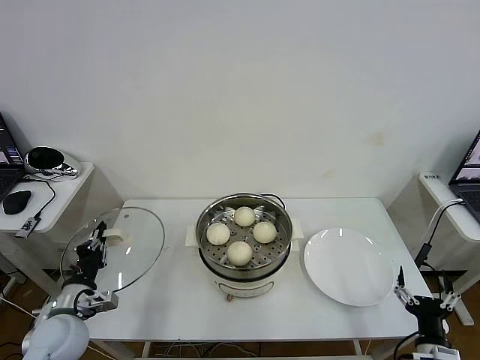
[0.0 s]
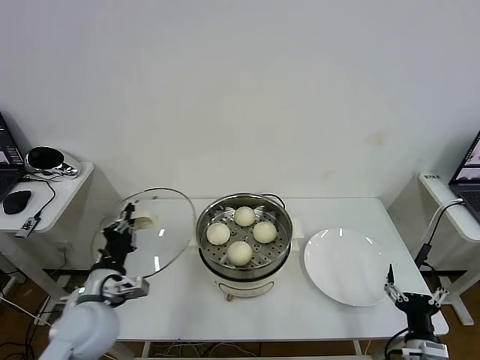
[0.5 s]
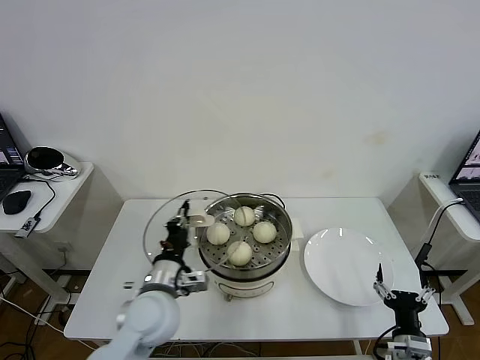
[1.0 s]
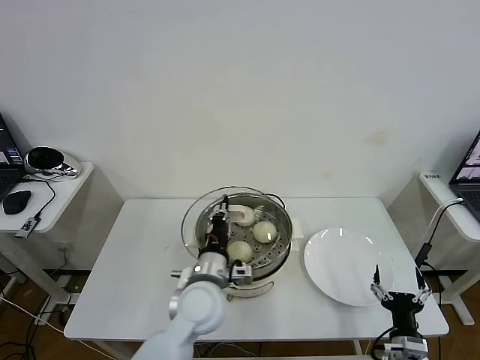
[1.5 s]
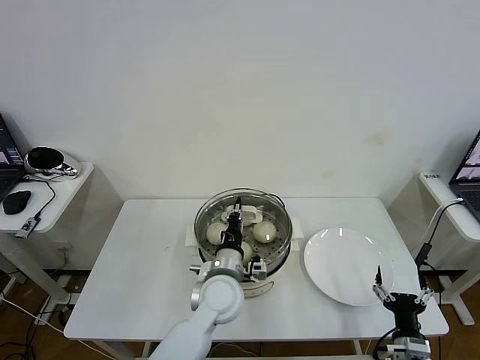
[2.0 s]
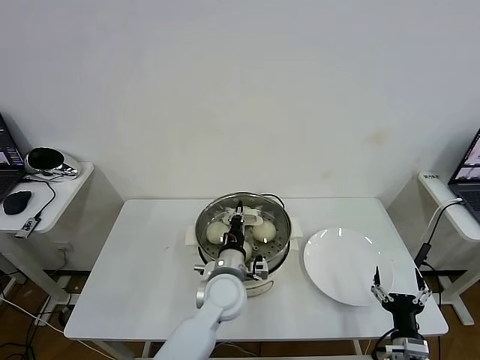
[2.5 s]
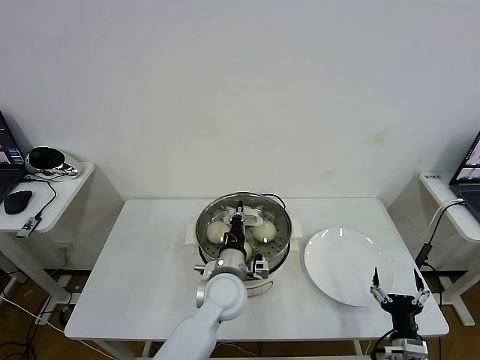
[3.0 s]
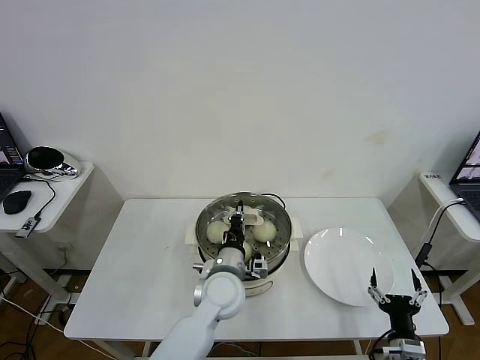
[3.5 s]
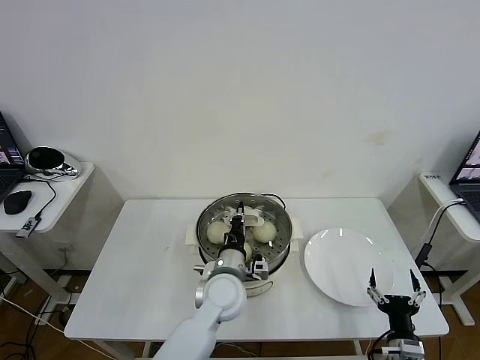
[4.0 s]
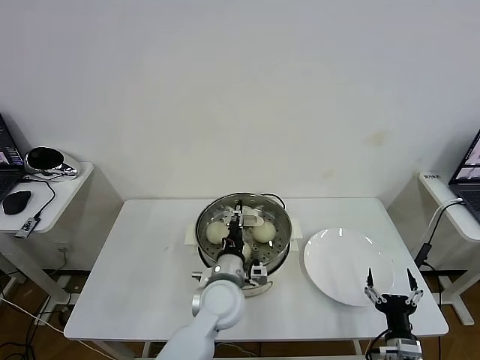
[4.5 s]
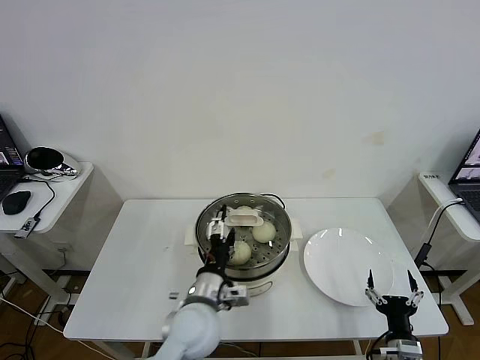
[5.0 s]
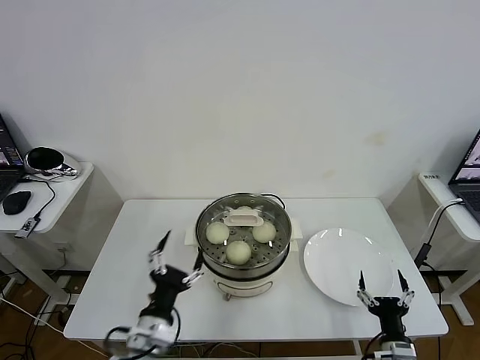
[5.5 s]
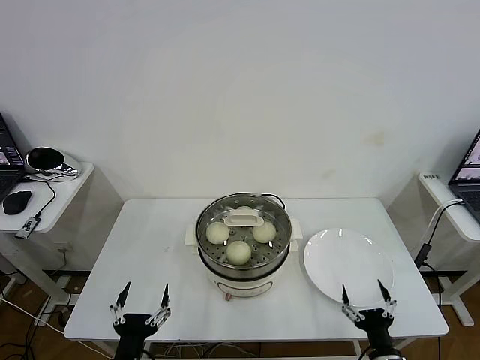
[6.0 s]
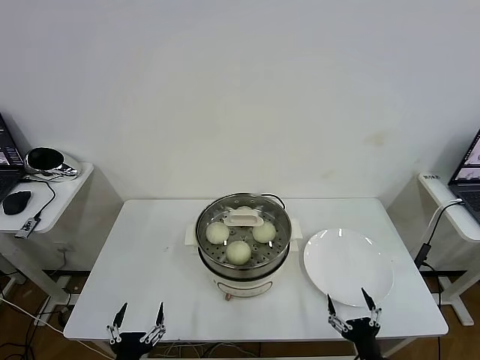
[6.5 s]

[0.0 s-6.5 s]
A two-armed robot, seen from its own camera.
Task of the whole recording: take steamed baozi put them in steamer then cover it.
Step, 0.0 to 5.0 s: Place the pot lid on the steamer with left gripper.
0.0 to 2.0 s: The left gripper heads to the right, covering approximately 30 cm.
2.0 to 4.5 s: The left gripper opens its fingers.
4.5 to 6.5 s: The left gripper shifts approximately 30 cm backward and to the left, and opens. Meanwhile the right gripper ends up approximately 5 cm from where it was.

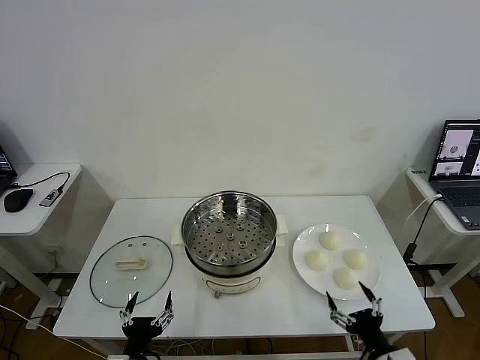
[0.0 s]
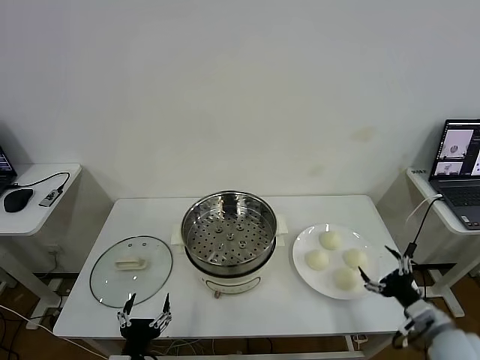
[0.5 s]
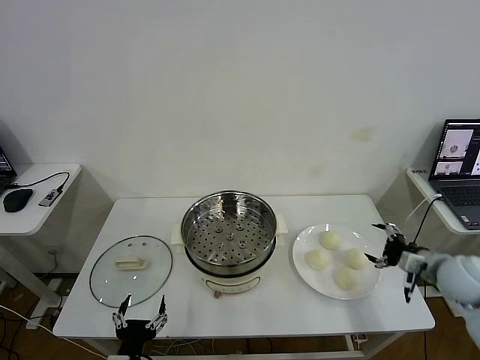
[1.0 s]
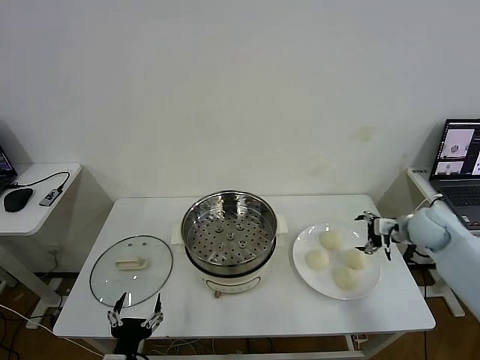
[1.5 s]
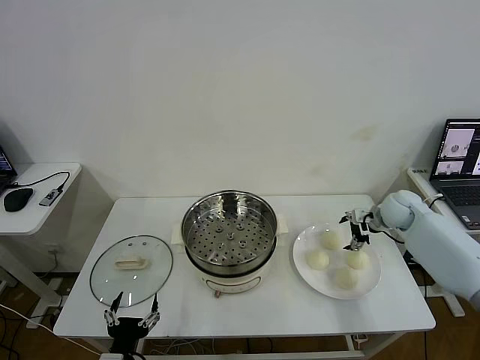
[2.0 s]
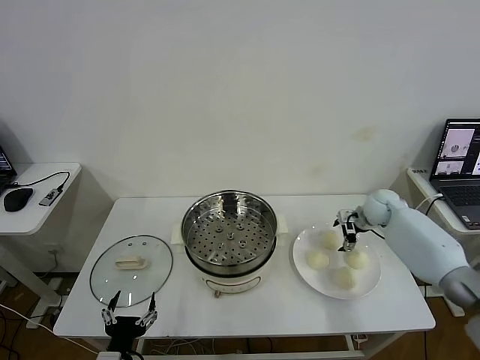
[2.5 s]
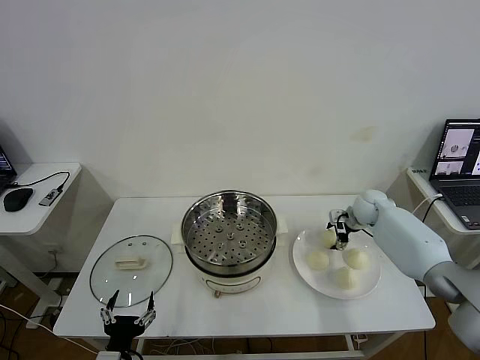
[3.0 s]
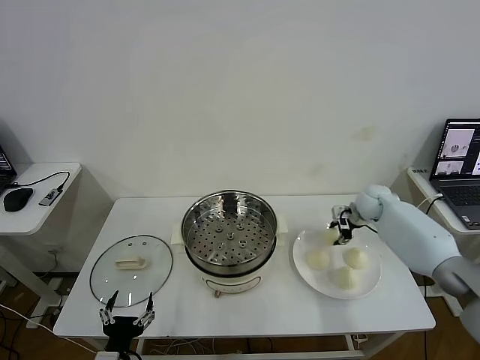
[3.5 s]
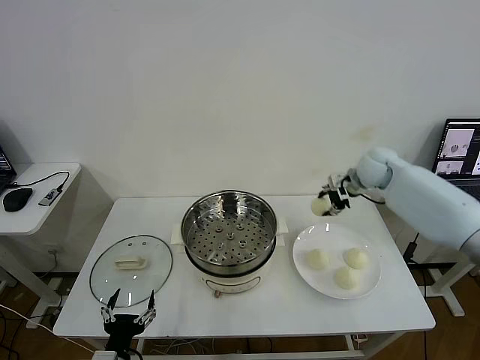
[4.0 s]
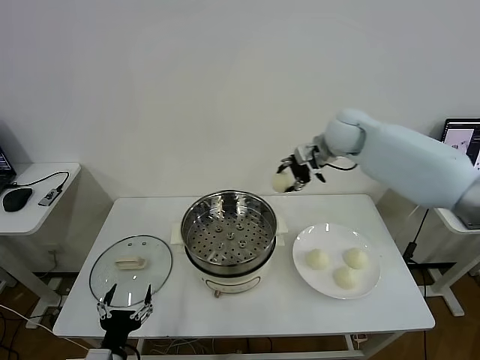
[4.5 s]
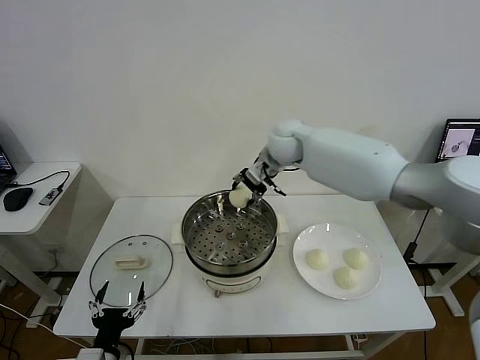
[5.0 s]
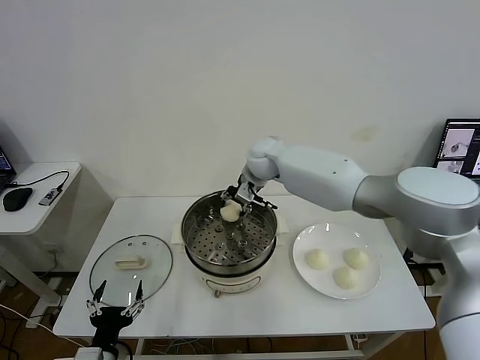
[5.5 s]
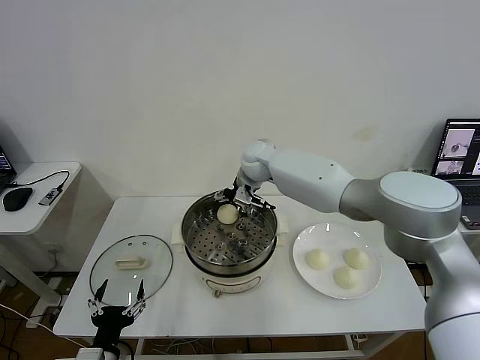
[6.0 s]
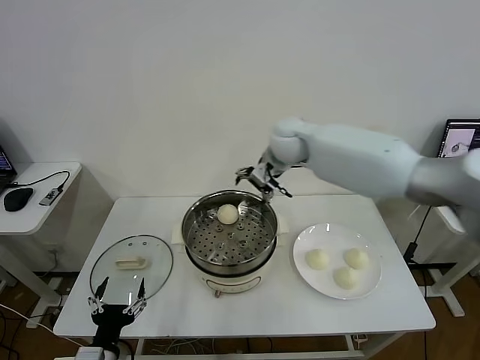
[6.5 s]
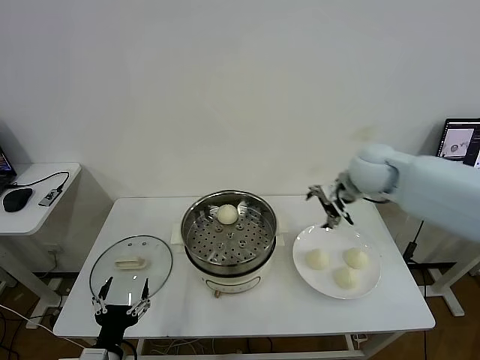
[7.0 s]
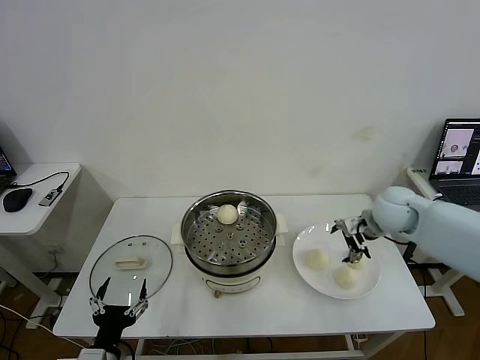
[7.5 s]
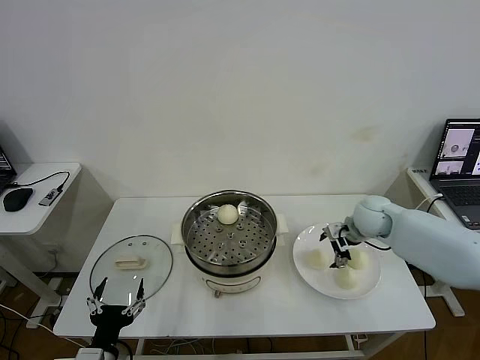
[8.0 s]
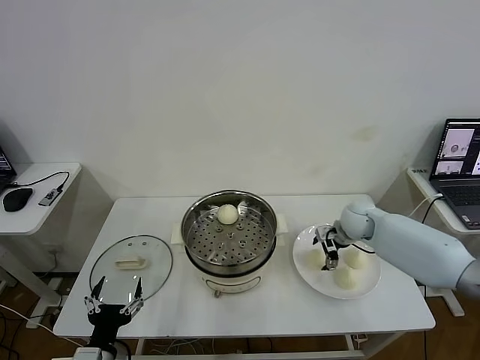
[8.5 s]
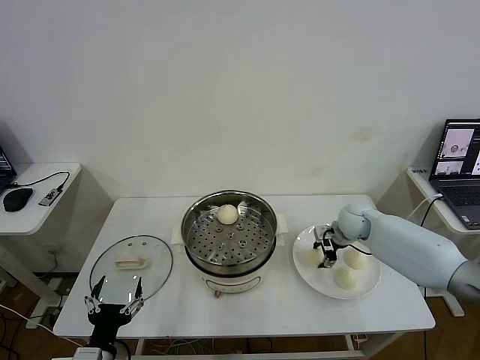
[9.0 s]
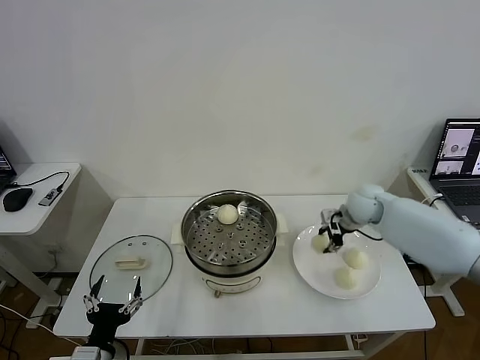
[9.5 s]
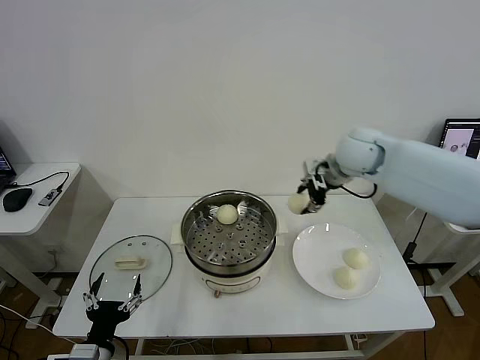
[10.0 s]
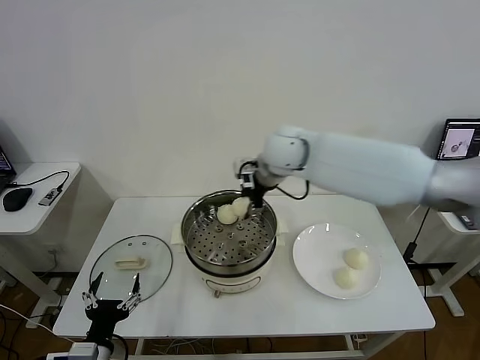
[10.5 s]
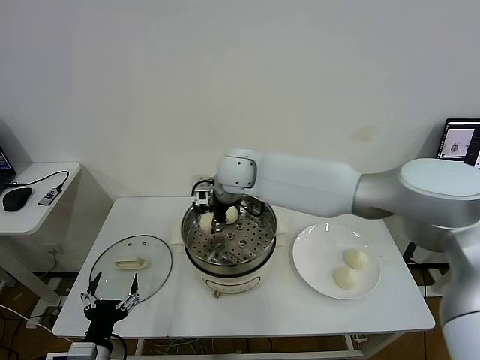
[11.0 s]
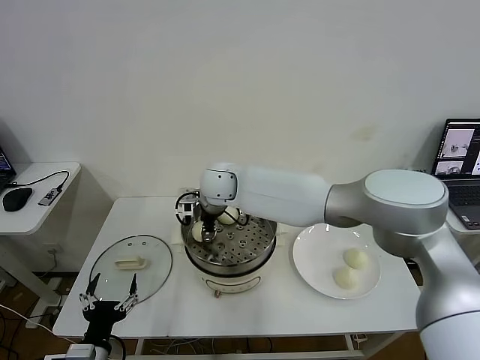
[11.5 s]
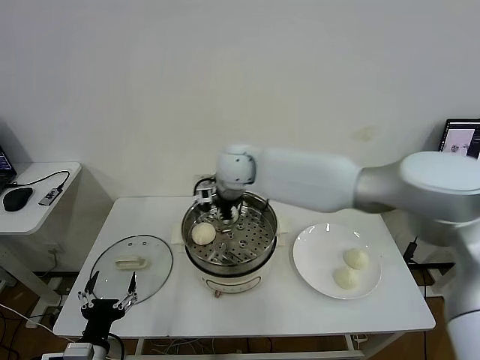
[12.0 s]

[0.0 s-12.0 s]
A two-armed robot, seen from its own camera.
Task of the whole recording: take steamed baozi put them in steamer then cover it.
Step, 0.0 to 3.0 s: Grasp the baozi in the plate with right gripper.
Step, 3.5 to 6.0 s: Place the baozi on the steamer with right gripper.
Step, 6.5 to 9.0 s: Grasp the baozi in the plate with right gripper.
Step, 9.5 to 11.5 s: Place the baozi on the steamer with right gripper.
2.0 to 4.0 s: The right gripper shifts about 15 cm upward and to the left, and closes.
4.0 to 6.0 s: The right gripper moves to the left, some 25 cm, and opens.
6.0 to 8.0 s: The right gripper travels to the right and downward by some 30 cm.
8.0 to 10.0 s: The right gripper is displaced upward and to the left by some 20 cm, and closes its fingers.
10.0 to 12.0 s: The right gripper travels to the left by some 20 cm, and opens its fingers.

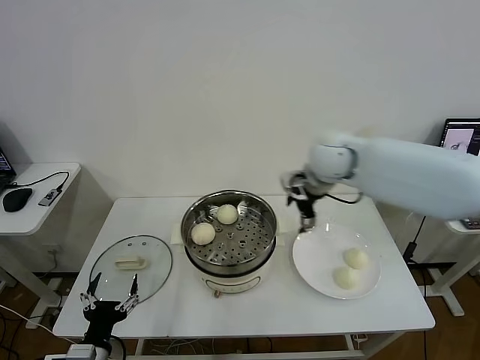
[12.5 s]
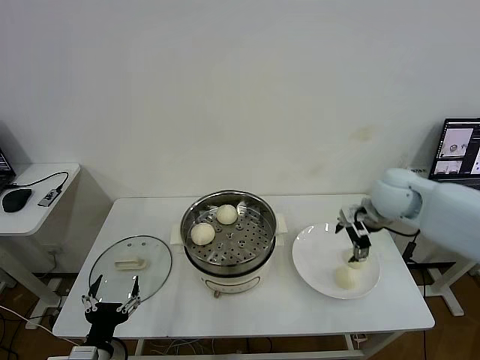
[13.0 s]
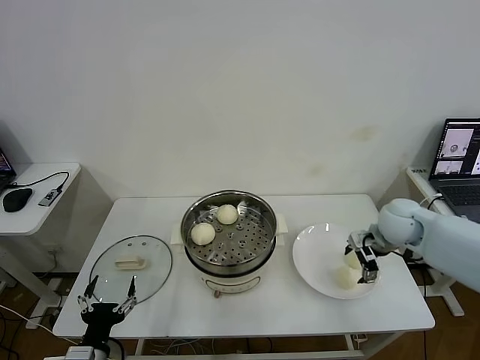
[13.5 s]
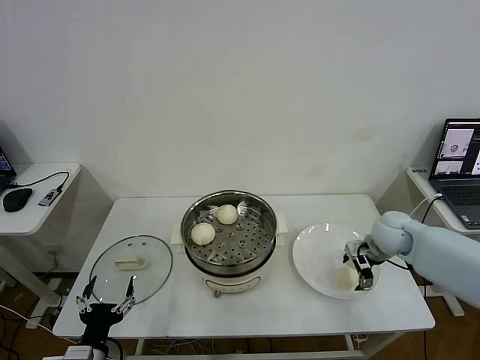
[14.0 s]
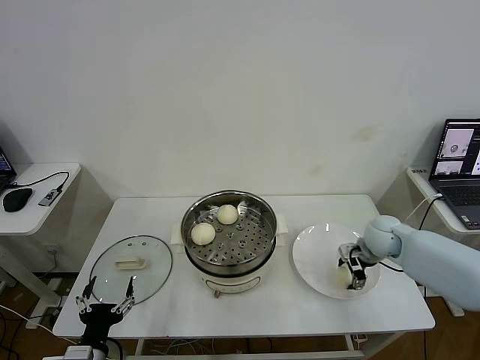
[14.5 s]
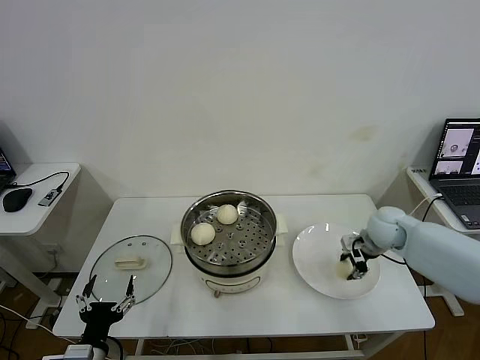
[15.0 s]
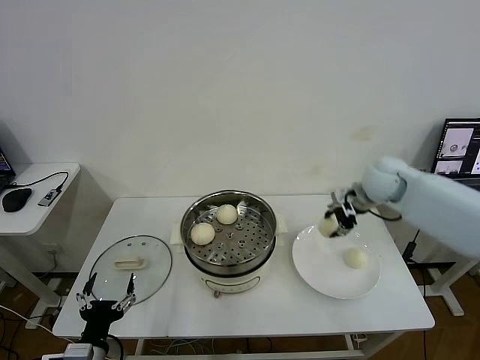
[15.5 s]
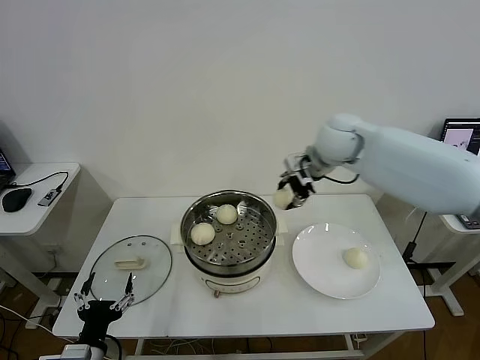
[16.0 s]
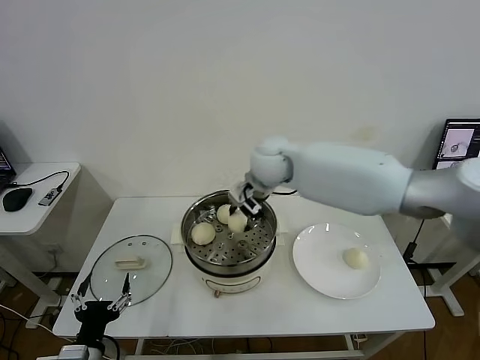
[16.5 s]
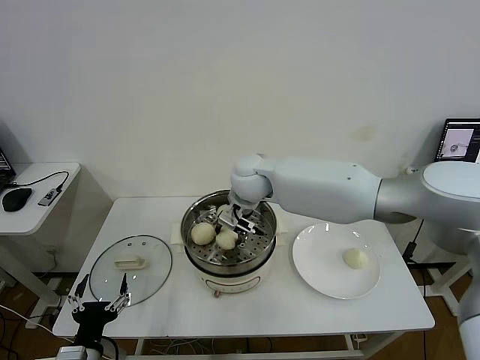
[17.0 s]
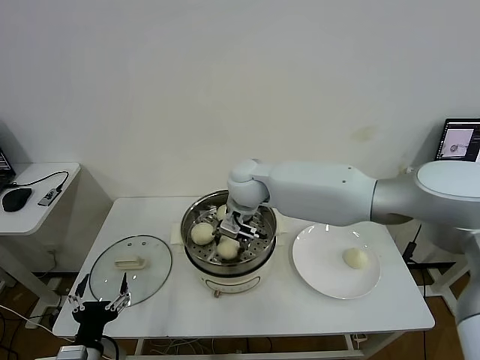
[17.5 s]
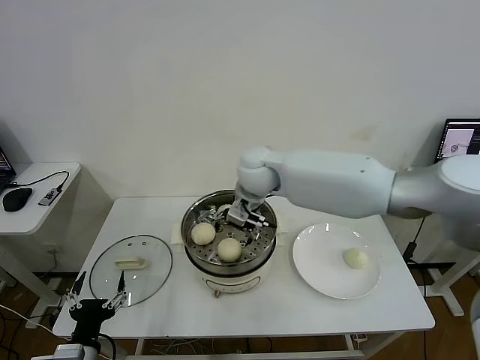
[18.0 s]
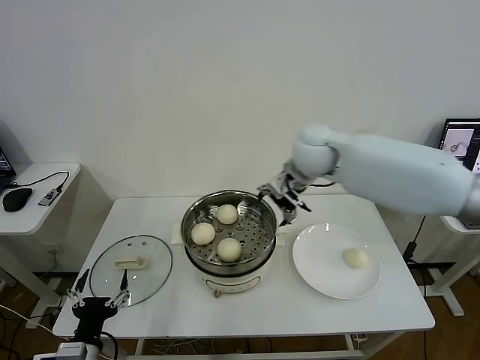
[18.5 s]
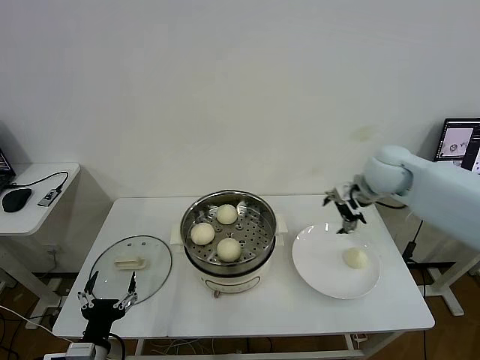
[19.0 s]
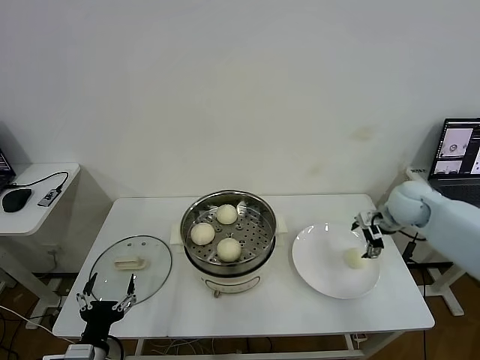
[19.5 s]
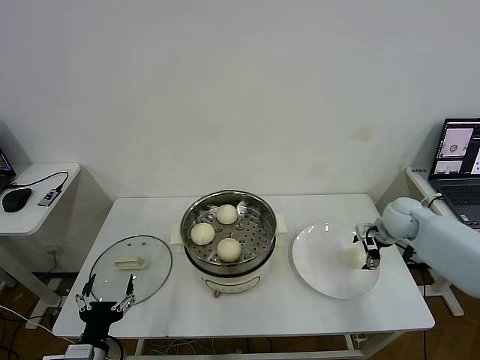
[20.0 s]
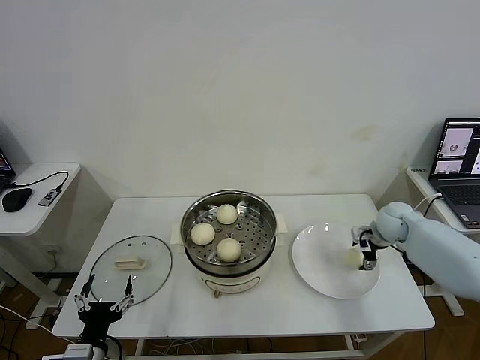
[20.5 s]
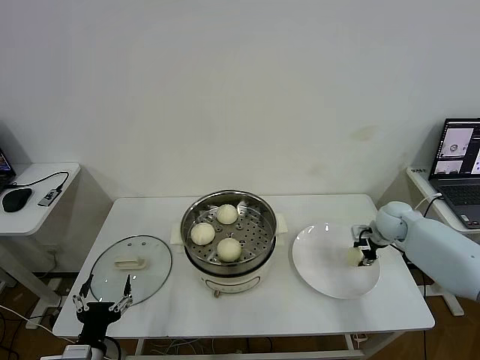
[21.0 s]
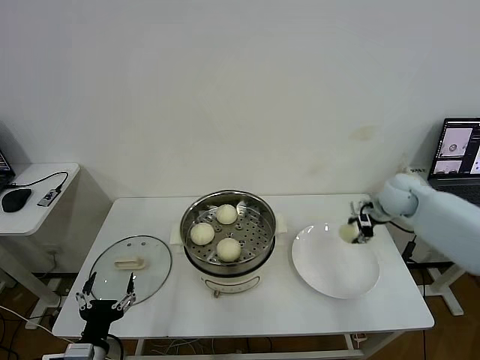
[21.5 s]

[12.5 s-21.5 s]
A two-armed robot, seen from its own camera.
Task of the whole recording: take steamed baozi put them in steamer then cover it.
Step, 12.5 to 14.5 s: Grasp the baozi in the plate with right gripper.
Step, 15.0 to 17.5 s: Place the baozi on the steamer with right gripper.
Step, 18.0 to 21.0 s: Grasp the baozi in the plate with right gripper.
12.5 to 14.5 s: The right gripper goes roughly 25 cm downward and to the right, and closes.
14.5 to 17.0 s: The right gripper travels to the left and upward by some 35 cm.
17.0 to 19.5 s: The right gripper shifts roughly 35 cm to the right, and opens its fingers.
19.5 to 21.5 s: The right gripper moves approximately 10 cm downward and comes back, and closes up.
